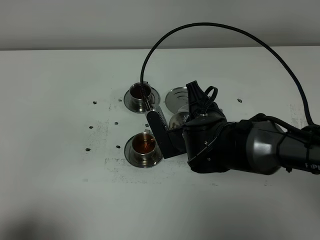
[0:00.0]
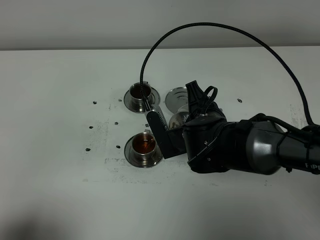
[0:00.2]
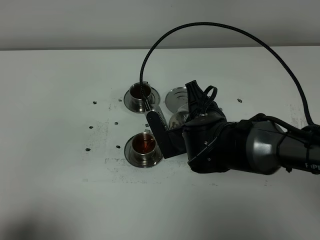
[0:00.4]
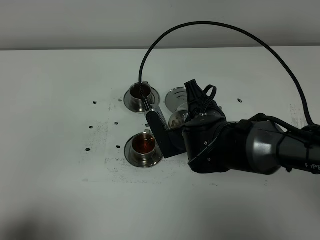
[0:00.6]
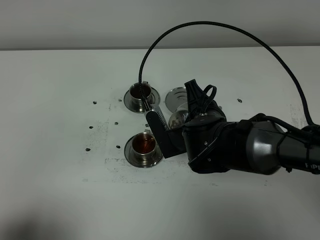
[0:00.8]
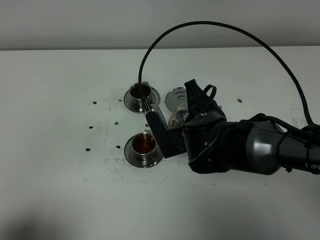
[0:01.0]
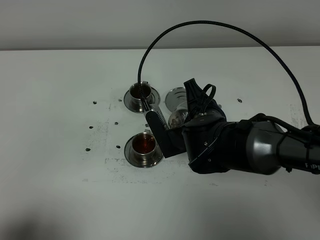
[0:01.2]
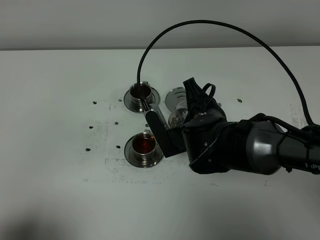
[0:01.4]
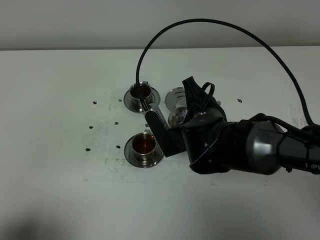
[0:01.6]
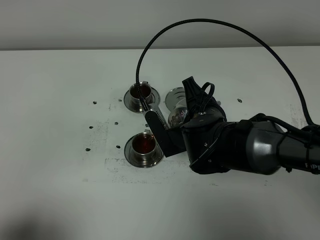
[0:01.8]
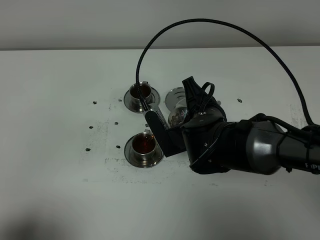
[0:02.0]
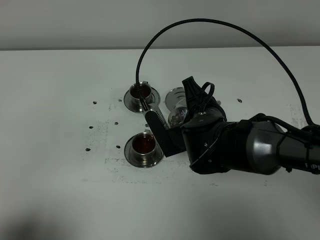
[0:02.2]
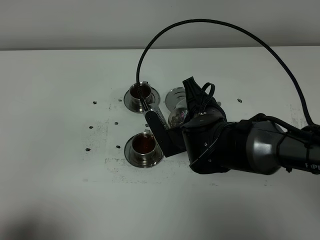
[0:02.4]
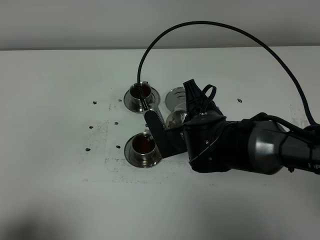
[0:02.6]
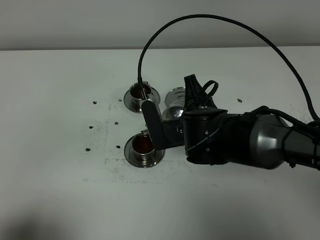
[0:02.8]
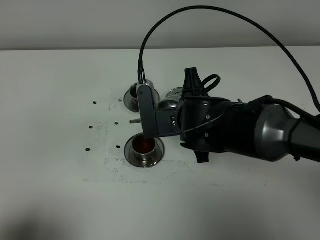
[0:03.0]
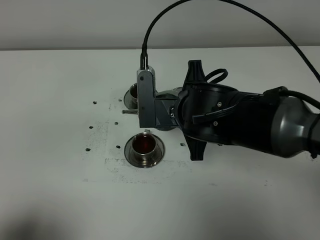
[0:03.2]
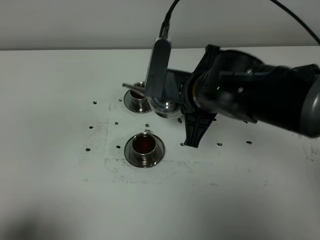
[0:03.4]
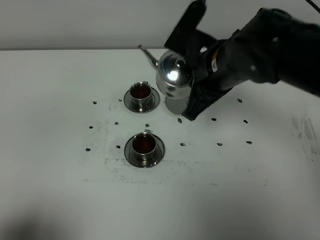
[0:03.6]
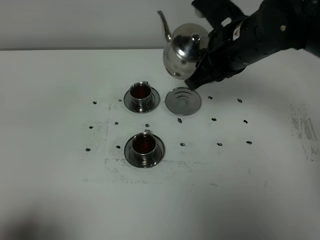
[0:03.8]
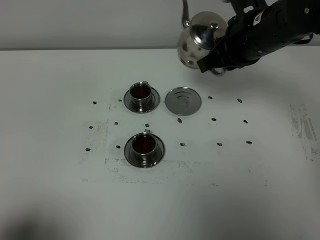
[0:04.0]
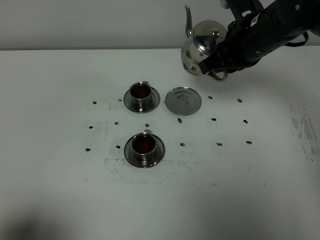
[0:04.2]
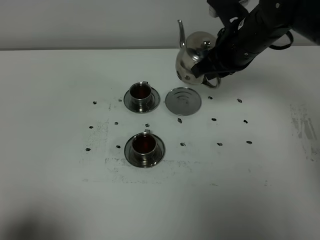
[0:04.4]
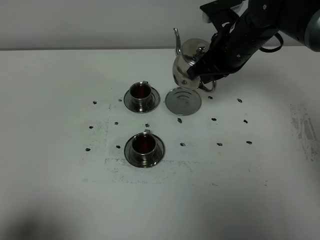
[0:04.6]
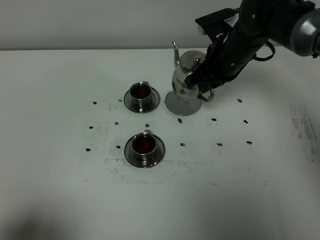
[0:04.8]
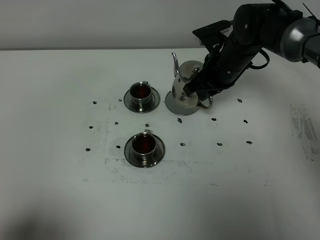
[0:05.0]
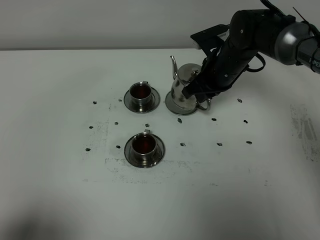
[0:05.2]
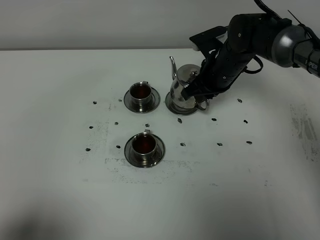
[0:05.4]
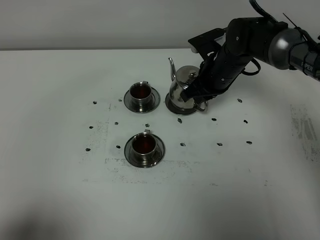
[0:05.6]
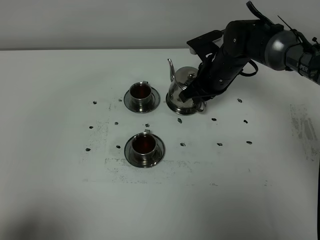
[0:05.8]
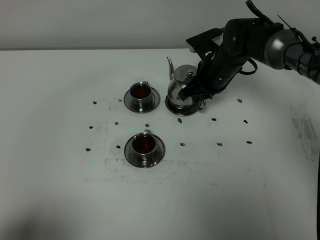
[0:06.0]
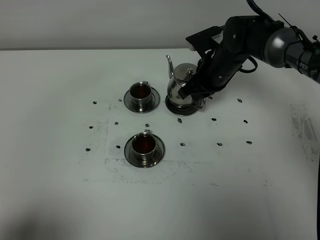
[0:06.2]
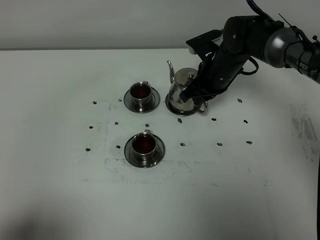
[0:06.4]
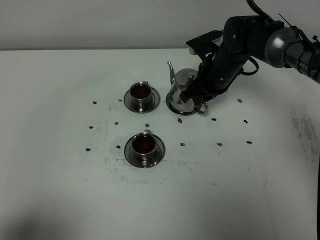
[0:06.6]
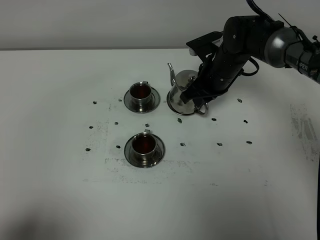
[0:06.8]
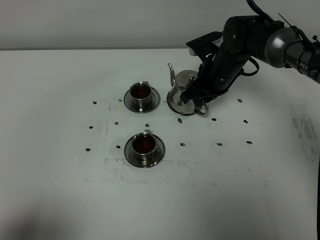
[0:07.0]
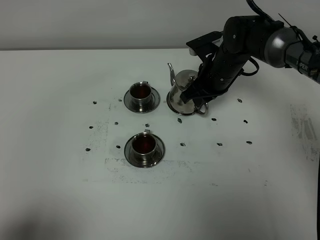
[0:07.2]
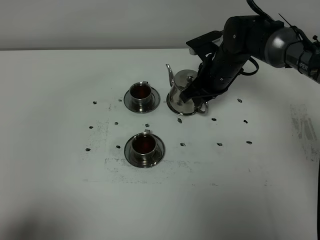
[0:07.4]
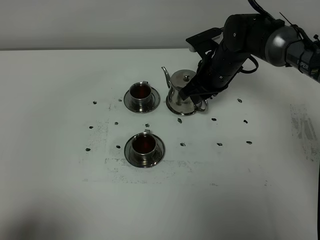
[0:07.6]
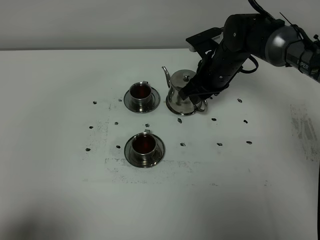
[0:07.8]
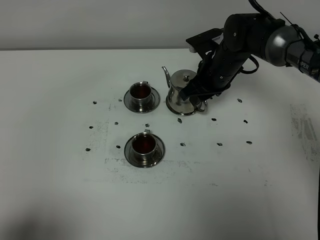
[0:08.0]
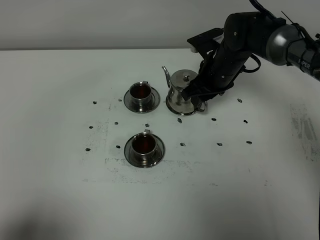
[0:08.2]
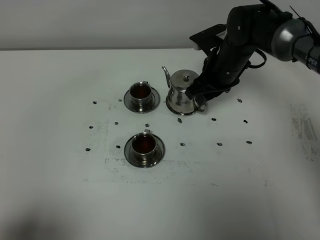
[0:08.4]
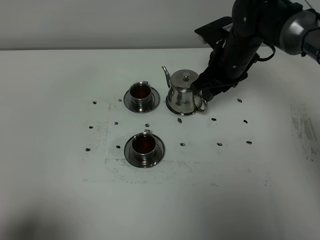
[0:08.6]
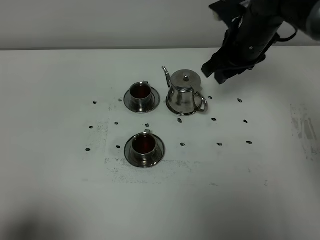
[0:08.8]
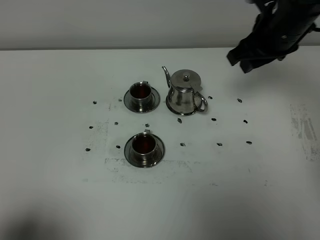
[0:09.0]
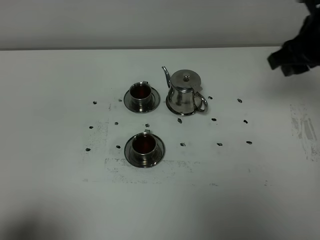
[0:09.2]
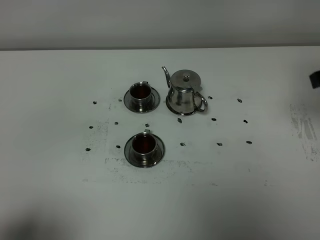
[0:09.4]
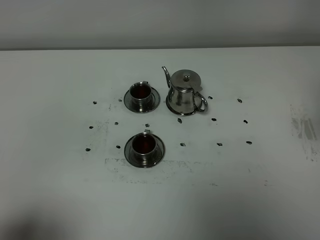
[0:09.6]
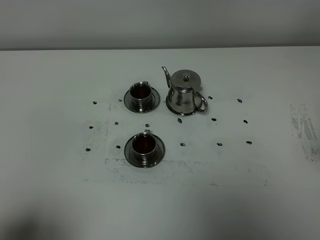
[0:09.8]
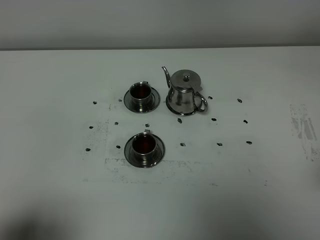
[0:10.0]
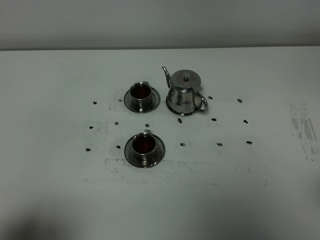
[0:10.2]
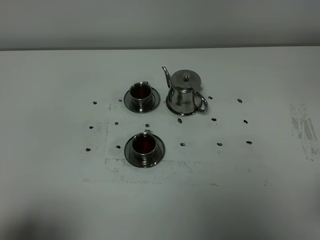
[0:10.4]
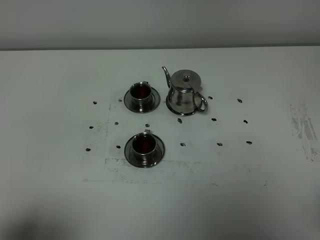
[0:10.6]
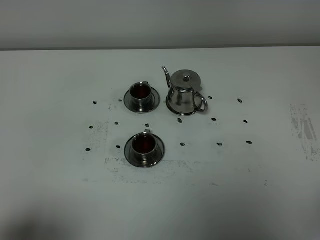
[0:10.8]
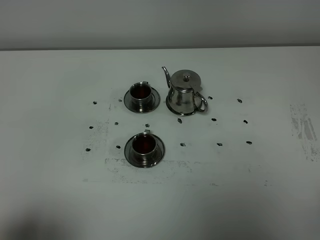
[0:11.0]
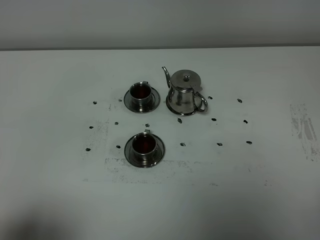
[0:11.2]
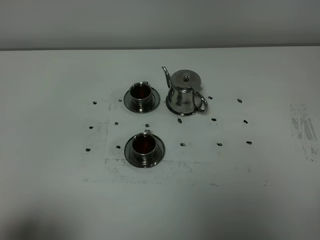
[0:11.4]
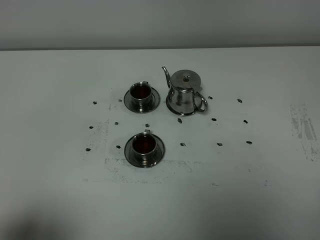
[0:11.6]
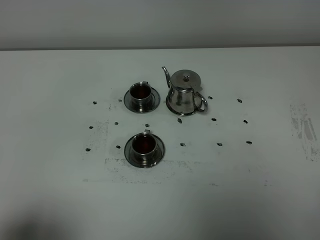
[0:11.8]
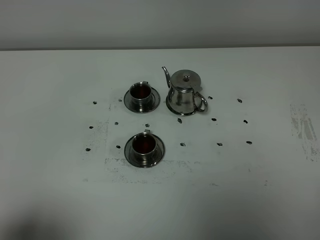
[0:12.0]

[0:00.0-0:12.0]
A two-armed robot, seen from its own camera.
Task of the whole recording: grasp the stainless steel teapot and pour the tea into the two stainless steel teacups one by one, put the stainless steel teapot back in its original place.
Step, 0:00.0 to 0:02.8: Pour tea into the teacup with the right gripper.
0:00.0 to 0:01.6: The two grippers keep their place.
0:03.0 to 0:04.4: The right gripper shifts roughly 15 cm forward, to the right and upward.
0:04.4 to 0:06.0: The right gripper shifts some 10 cm downward.
0:06.0 to 0:07.6: The two grippers keep their place.
0:07.6 to 0:09.0: The right gripper is displaced upward, to the right and backward by roughly 15 cm, and opens.
0:09.0 to 0:10.4: The right gripper heads backward, covering about 30 cm.

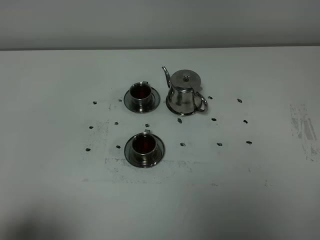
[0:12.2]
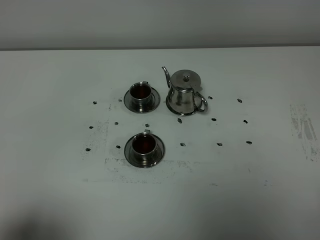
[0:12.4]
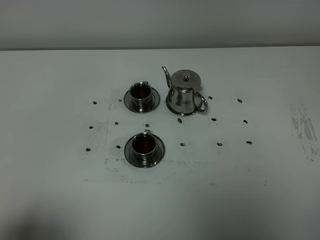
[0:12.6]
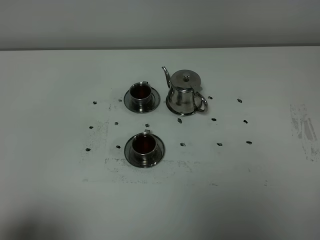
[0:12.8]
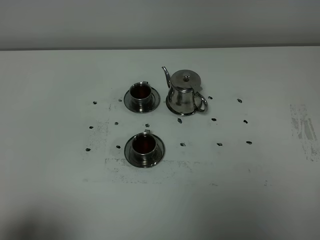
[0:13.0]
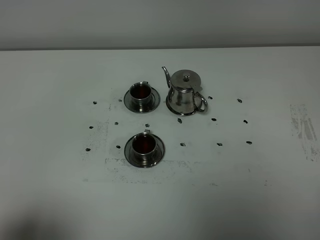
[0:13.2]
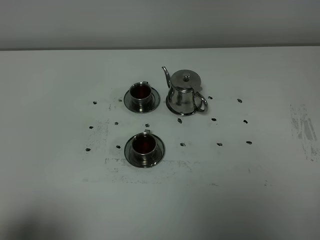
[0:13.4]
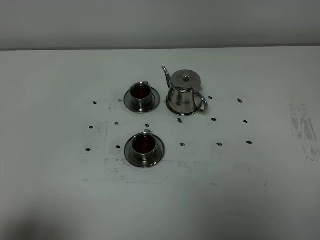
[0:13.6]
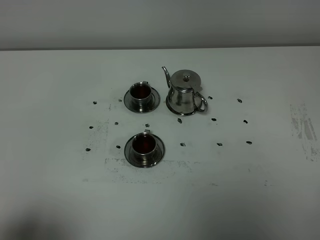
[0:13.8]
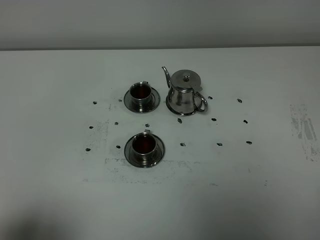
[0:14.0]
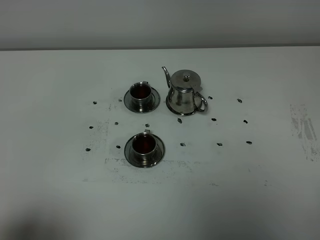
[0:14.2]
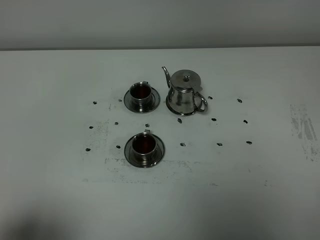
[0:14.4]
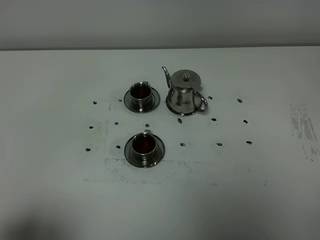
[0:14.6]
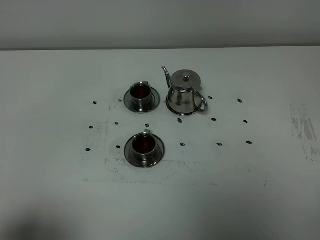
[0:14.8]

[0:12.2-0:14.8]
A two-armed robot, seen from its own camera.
Task of the whole recording: grasp the stainless steel teapot and pour the tea into the two stainless steel teacups one by one, put the stainless steel teapot back in its original place.
0:12.2 to 0:14.8: The two grippers keep their place.

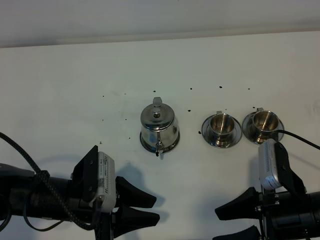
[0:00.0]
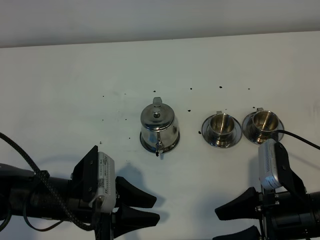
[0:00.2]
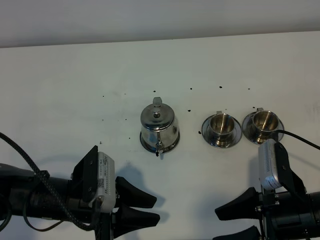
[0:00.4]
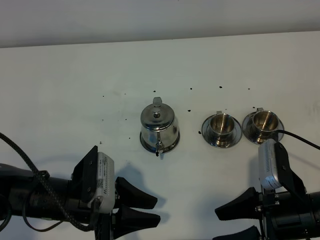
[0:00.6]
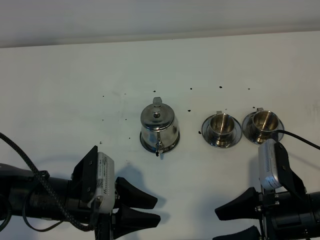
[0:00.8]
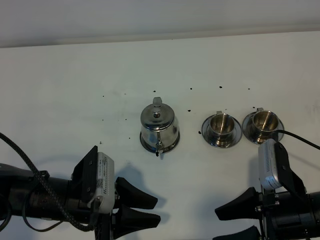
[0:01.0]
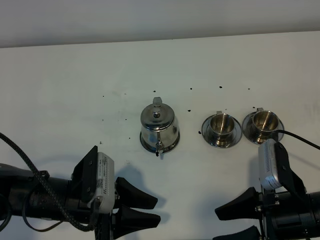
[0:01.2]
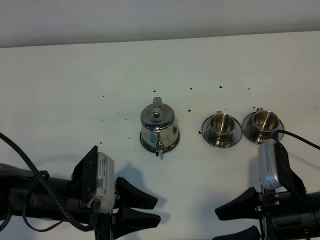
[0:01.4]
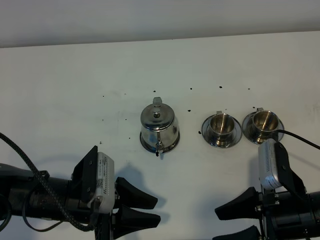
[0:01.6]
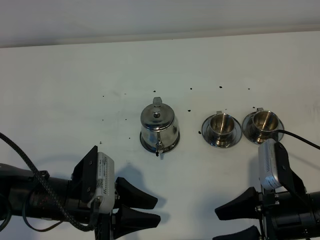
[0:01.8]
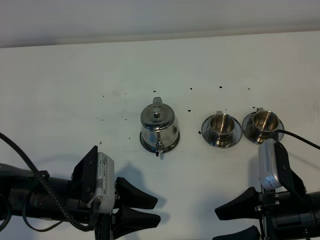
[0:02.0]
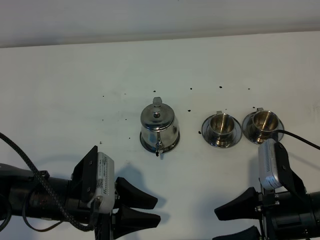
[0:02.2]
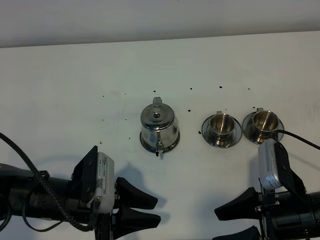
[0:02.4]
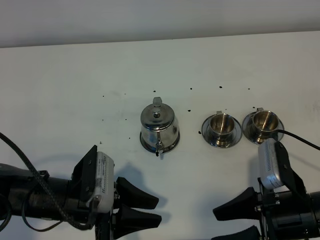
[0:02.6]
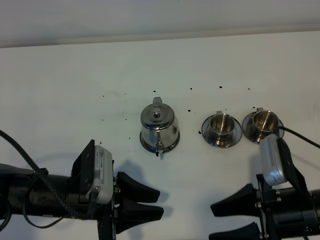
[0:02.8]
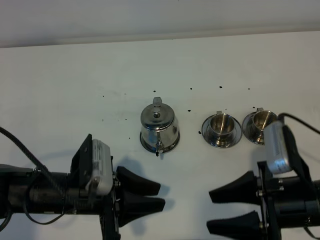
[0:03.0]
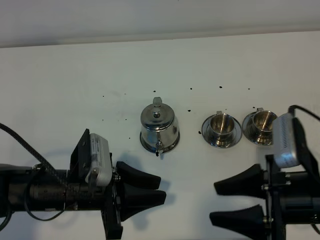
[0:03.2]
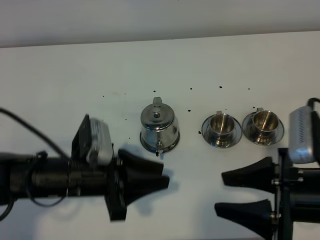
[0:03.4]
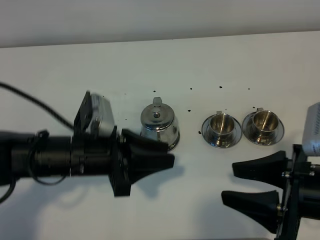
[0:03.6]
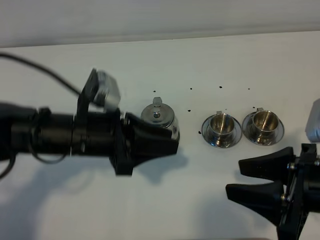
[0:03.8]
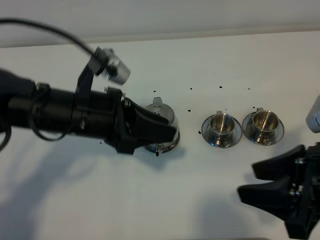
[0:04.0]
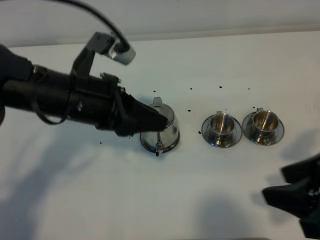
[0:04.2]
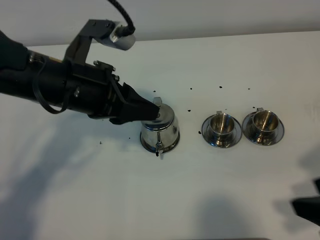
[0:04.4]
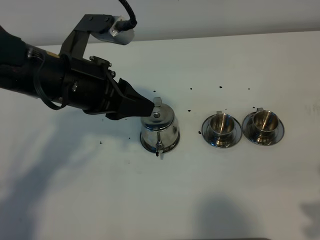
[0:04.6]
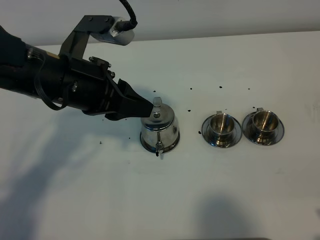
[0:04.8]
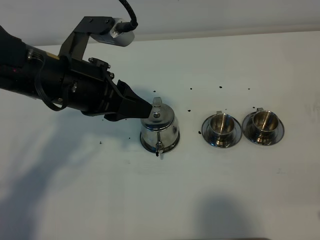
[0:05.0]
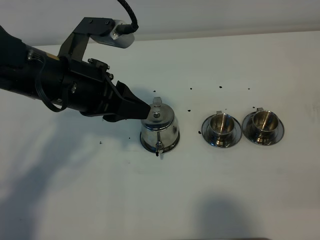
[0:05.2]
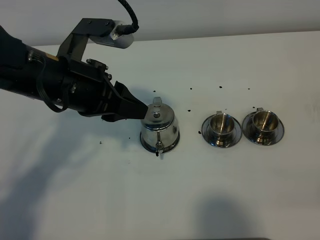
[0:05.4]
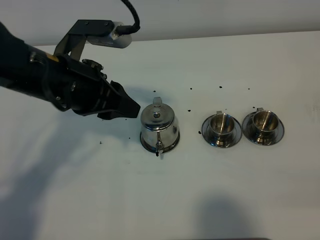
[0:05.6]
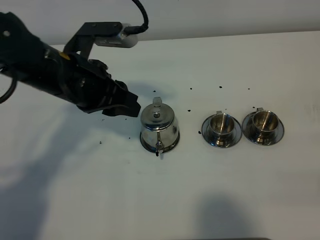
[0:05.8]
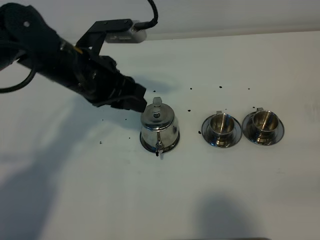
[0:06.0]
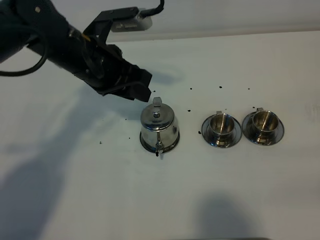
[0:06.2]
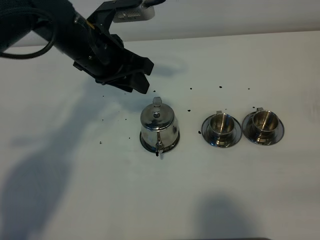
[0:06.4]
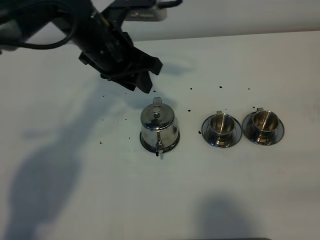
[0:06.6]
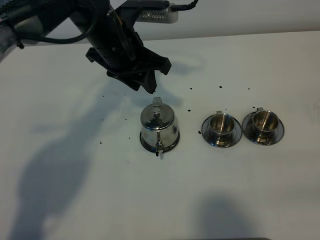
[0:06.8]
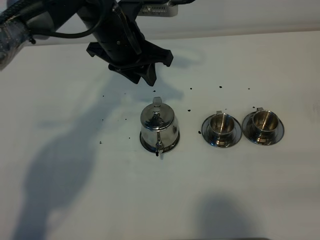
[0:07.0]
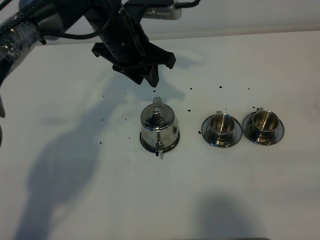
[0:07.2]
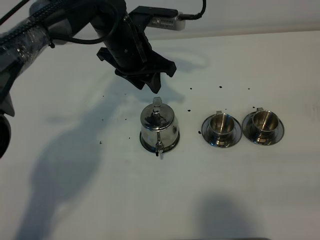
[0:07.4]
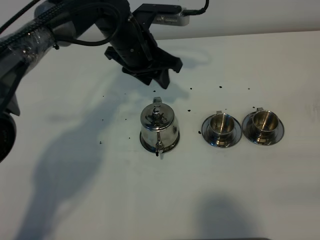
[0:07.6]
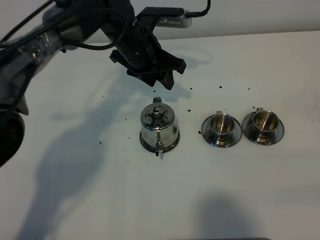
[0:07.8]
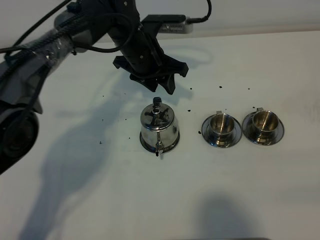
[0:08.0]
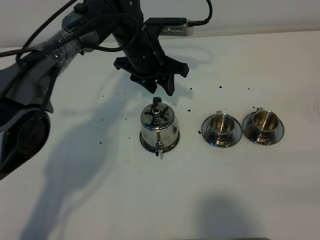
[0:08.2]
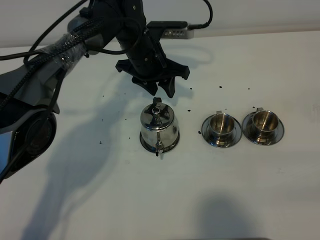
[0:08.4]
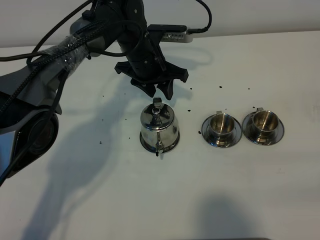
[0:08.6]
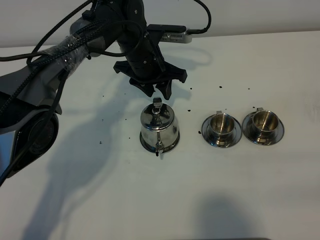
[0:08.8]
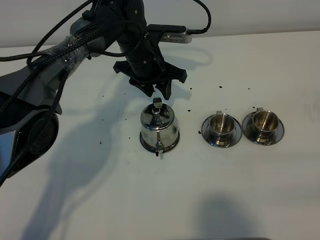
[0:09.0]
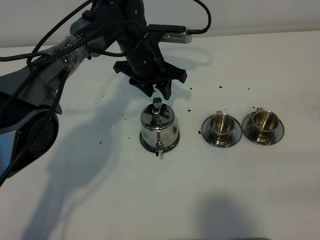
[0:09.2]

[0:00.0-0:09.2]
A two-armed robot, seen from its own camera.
Task of the whole recording: grasp the stainless steel teapot and pour the tea into the two stainless steel teacups one by one, put the stainless steel teapot back in its original place.
0:00.0 to 0:01.6: Both grippers stay about where they are.
0:01.6 to 0:03.0: The grippers move only a little.
0:03.0 to 0:04.6: The left gripper travels upward and forward by some 15 cm, while the right gripper moves upward, to the right and backward, roughly 15 cm.
0:04.6 to 0:06.2: The left gripper is displaced forward by roughly 10 cm. Meanwhile the right gripper goes approximately 5 cm backward, and closes.
0:06.2 to 0:07.6: The left gripper travels forward and to the right by about 10 cm.
0:07.6 to 0:09.2: The left gripper shifts roughly 5 cm downward.
